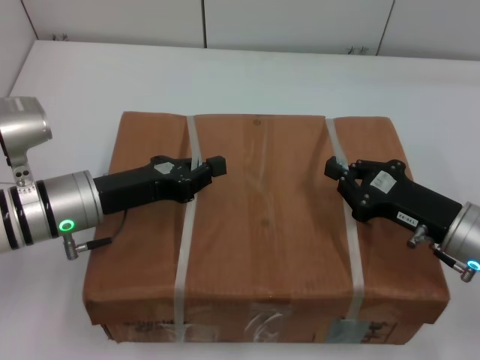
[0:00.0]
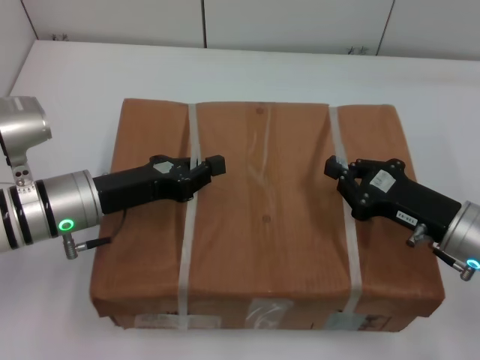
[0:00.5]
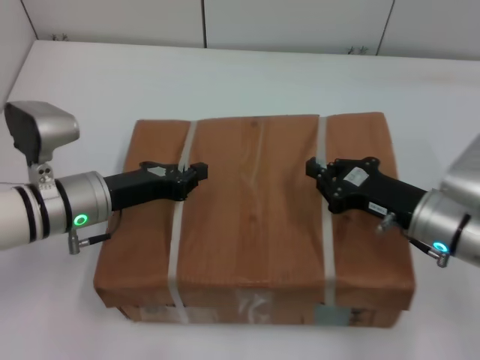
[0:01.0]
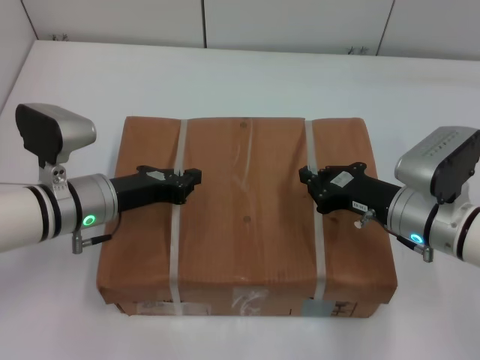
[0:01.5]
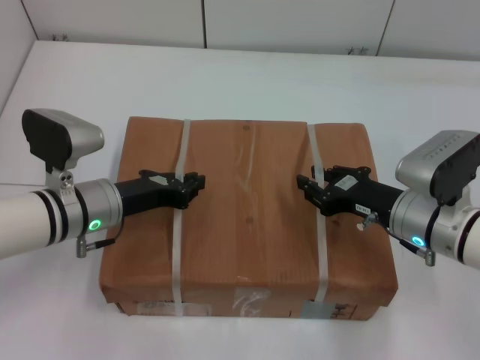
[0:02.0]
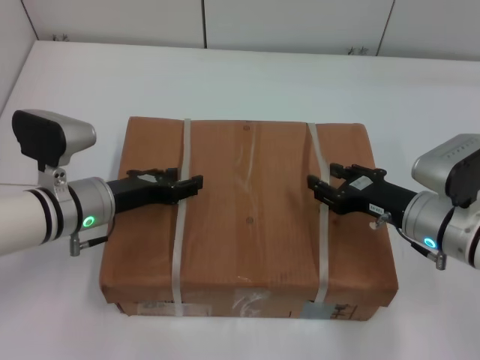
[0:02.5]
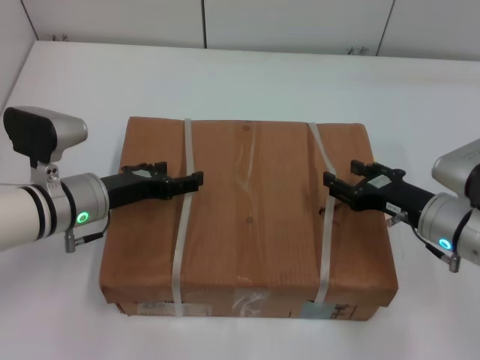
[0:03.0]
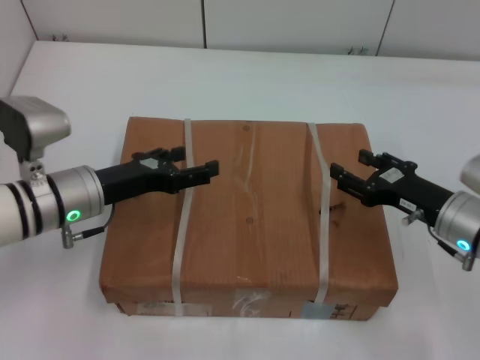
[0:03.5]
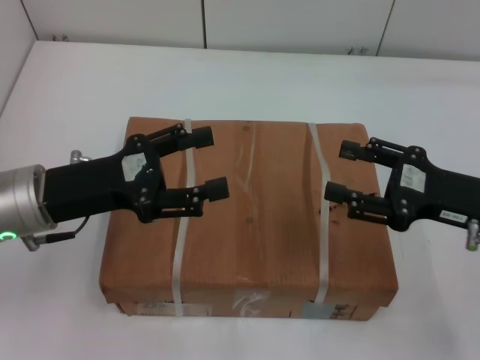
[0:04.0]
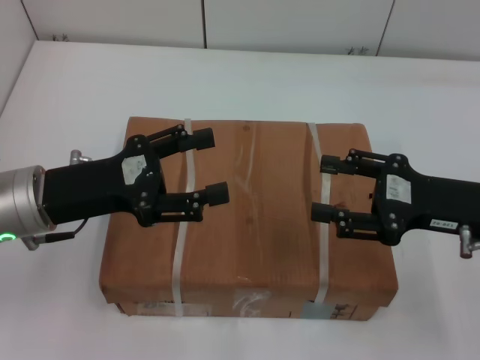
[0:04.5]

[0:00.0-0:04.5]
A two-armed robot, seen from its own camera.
Task of the whole recording: place the box on the table with both arms.
Step, 0:00.0 to 0:01.5: Place the box on the table with left gripper.
Step, 0:00.0 to 0:01.5: Place the box on the table with right gripper.
Step, 0:02.0 to 0:02.5: Loosen the box on the table with left gripper.
Step, 0:02.0 to 0:02.5: Loosen the box on the table with right gripper.
0:00.0 to 0:02.0: The right gripper ends up some 5 cm from where it was.
0:02.0 to 0:04.5: The right gripper shifts about 10 cm upward and to the right, and opens its fingers. Meanwhile the left gripper is displaced upward by roughly 10 cm, and opens up.
